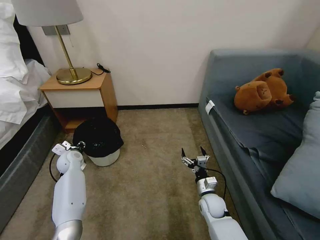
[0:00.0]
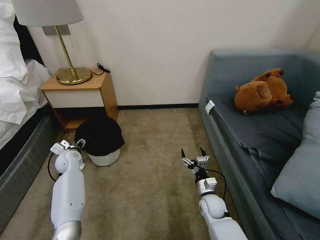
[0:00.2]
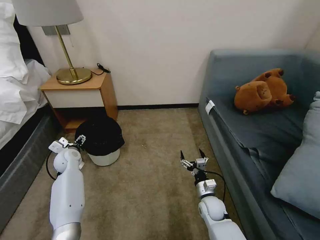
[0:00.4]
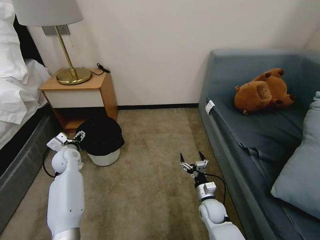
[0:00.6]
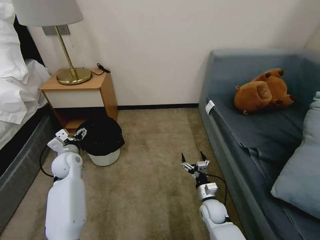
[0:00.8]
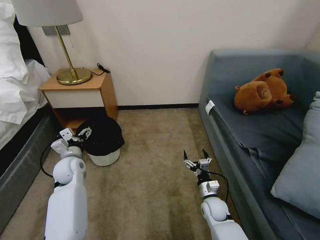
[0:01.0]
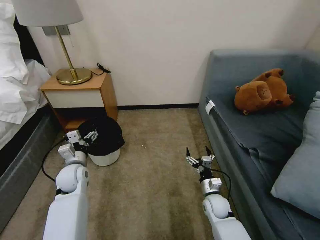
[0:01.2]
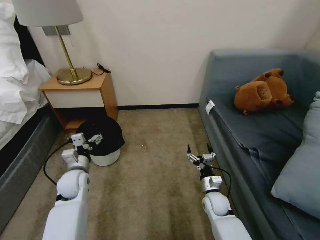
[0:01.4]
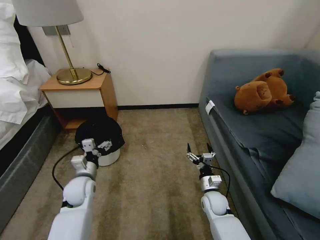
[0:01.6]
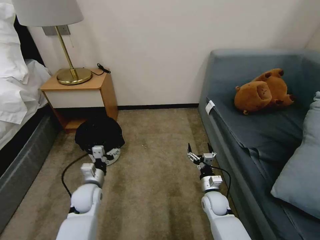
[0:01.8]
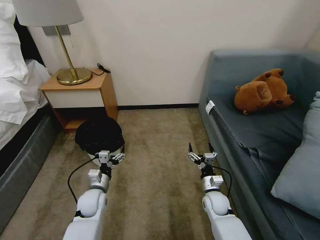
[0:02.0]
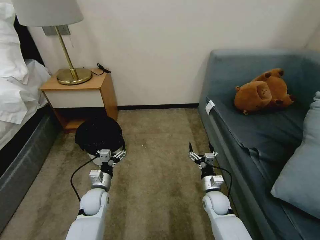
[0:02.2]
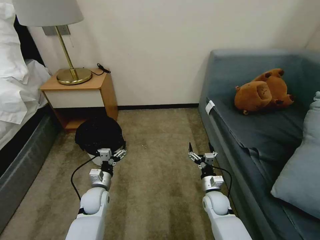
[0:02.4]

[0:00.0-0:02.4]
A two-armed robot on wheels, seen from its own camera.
Task of the whole recording: Pick up the trash bin, then pick up the garbage on the floor and place it into the trash bin.
0:00.0 to 0:01.2: The left gripper heads backward and to the right, covering some 10 cm, and opens up.
0:01.2 to 0:02.4: The left gripper goes approximately 10 cm downward and to the right.

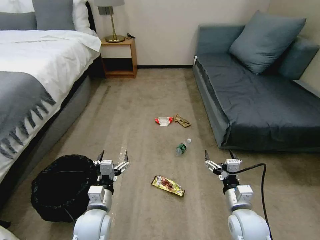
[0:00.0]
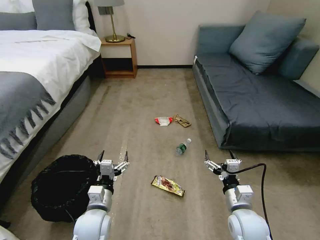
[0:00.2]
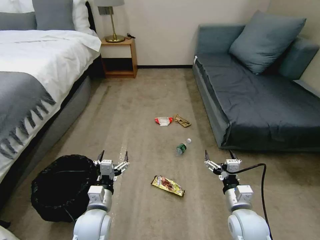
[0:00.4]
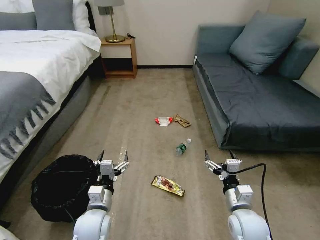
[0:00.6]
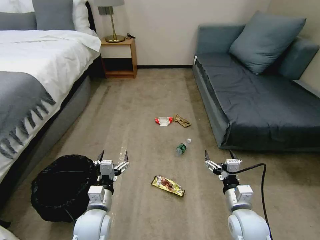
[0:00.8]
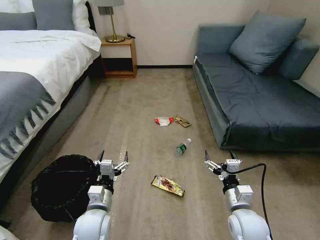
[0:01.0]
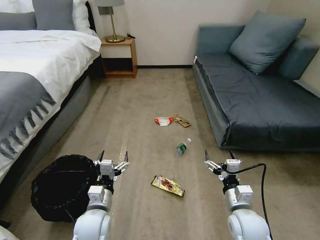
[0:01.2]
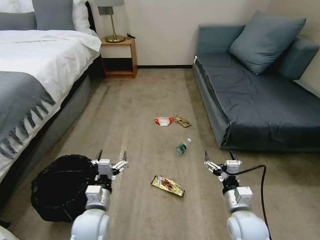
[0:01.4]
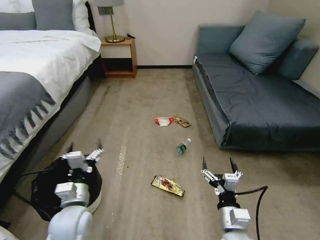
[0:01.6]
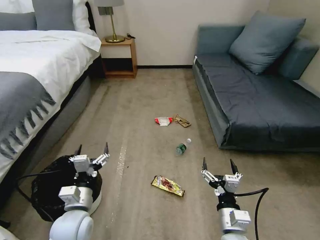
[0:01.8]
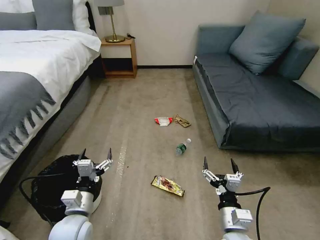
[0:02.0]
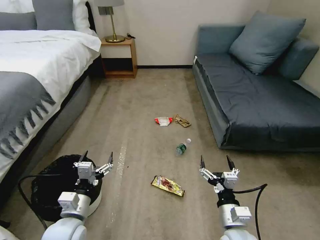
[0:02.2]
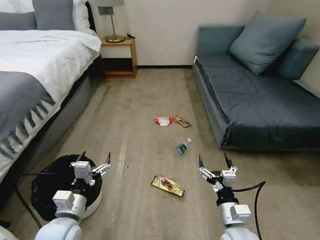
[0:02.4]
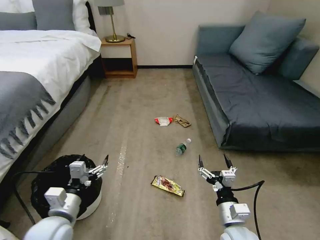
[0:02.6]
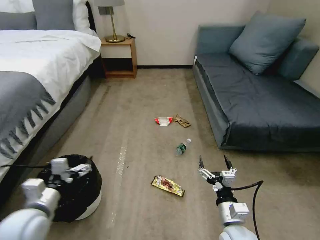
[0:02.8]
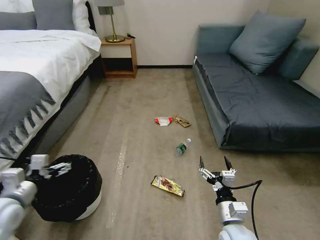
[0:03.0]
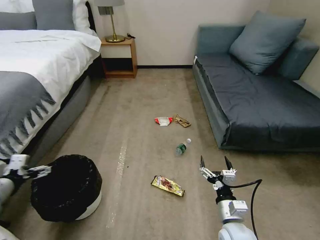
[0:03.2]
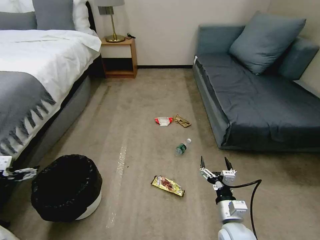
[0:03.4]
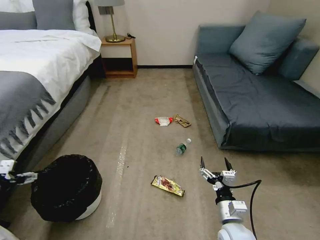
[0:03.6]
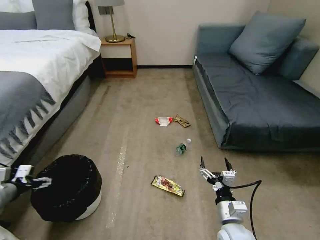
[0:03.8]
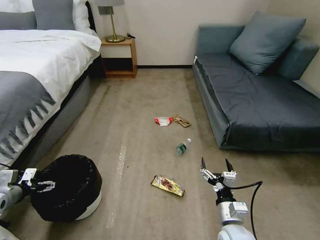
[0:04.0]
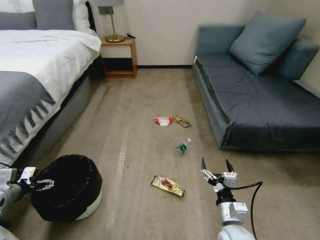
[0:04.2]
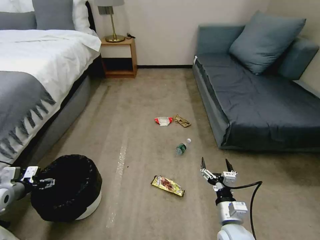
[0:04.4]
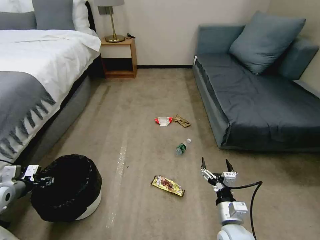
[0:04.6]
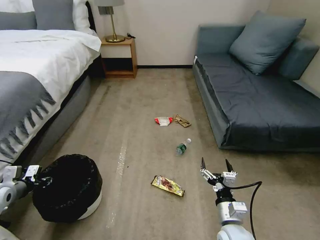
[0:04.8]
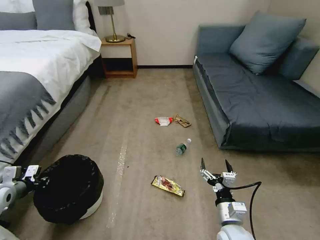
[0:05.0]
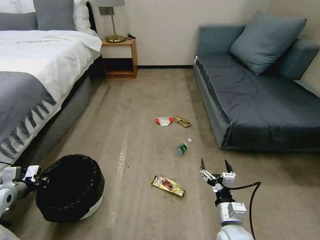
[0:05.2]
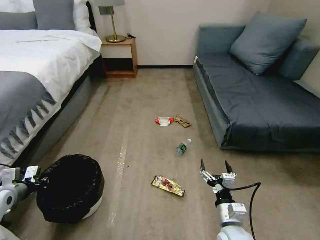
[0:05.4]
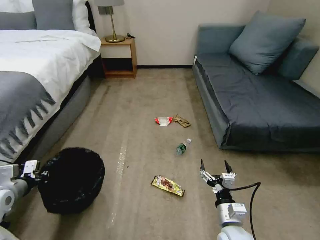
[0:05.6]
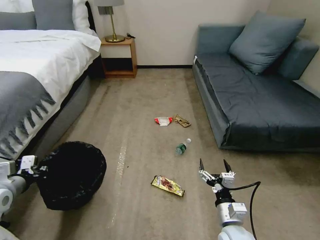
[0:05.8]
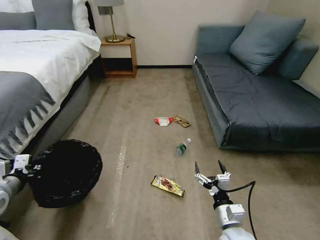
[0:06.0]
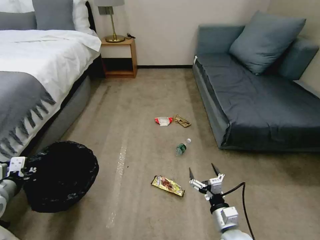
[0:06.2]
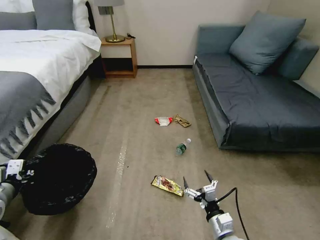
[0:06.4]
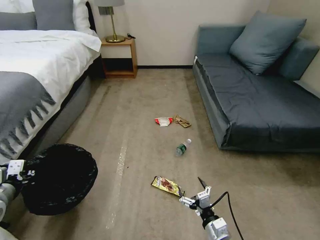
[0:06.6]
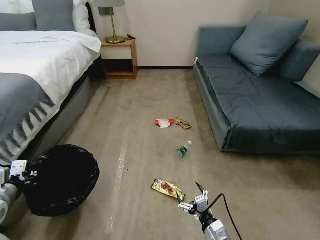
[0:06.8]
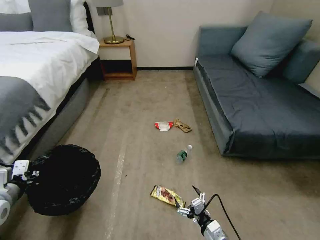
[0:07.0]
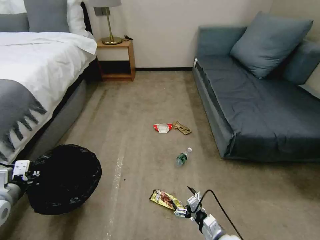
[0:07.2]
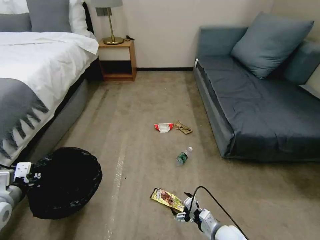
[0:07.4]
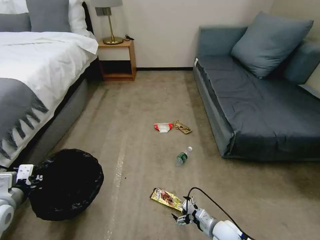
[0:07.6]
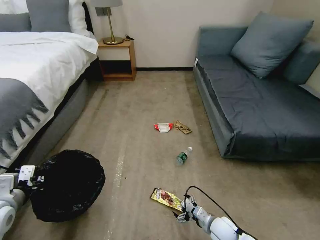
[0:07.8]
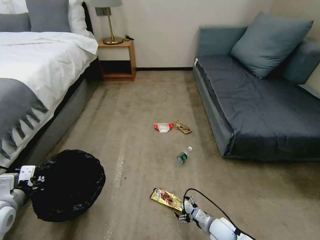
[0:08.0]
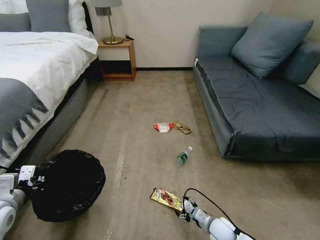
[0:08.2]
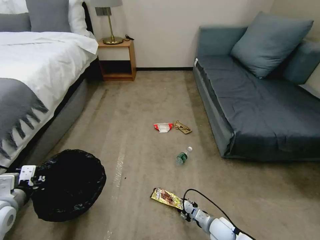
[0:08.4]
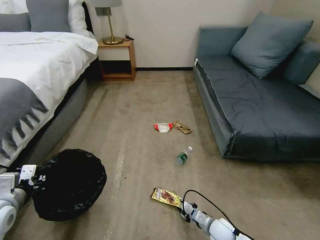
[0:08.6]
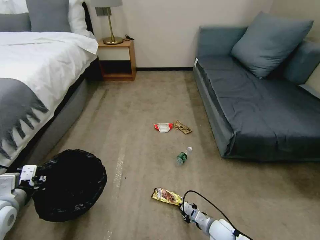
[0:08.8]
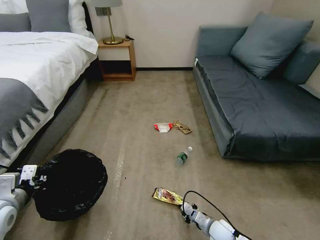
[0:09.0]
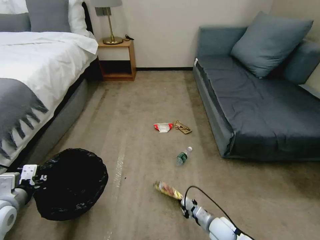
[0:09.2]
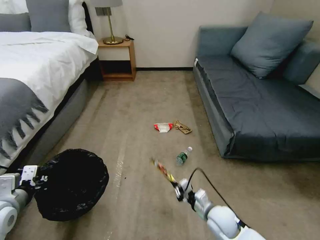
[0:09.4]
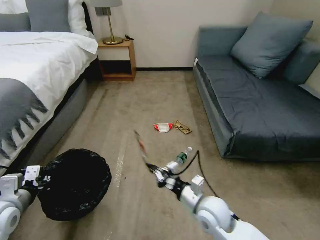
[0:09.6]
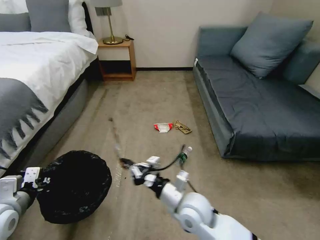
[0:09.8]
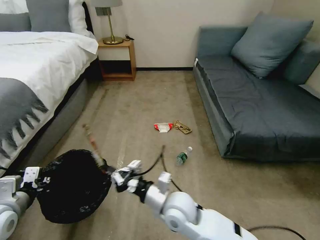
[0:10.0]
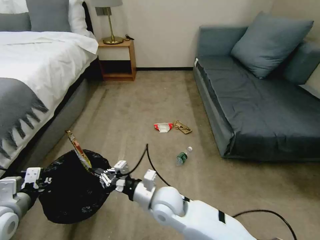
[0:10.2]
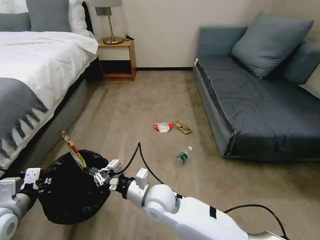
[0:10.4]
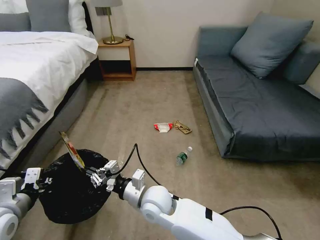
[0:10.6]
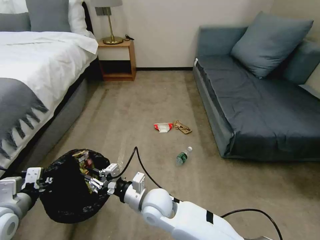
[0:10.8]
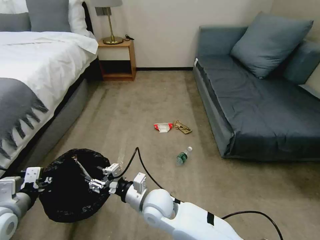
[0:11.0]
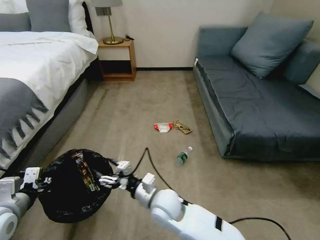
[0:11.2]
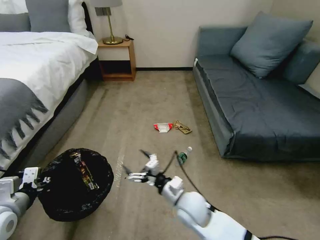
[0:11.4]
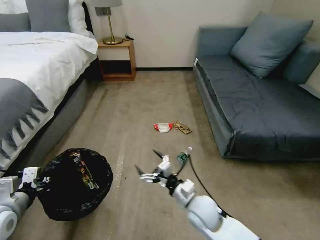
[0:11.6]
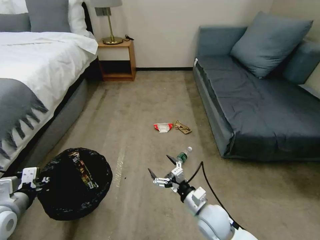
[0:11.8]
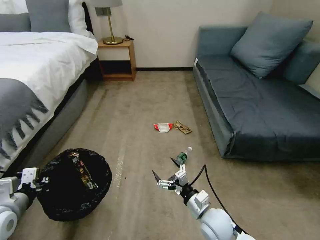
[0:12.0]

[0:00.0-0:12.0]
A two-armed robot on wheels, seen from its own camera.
Task of the whole recording: Pick up the trash bin, then pick up the garbage on the floor and place it into the trash bin.
0:01.6 to 0:03.0: The left gripper goes approximately 20 cm to the left and upward.
0:03.0 to 0:04.4: The left gripper moves to the left, downward and forward, approximately 15 cm.
0:04.4 to 0:06.0: The left gripper heads upward and to the right, covering roughly 10 cm, and closes.
0:06.0 to 0:07.6: The right gripper heads downward, covering about 10 cm.
0:07.6 to 0:09.0: The right gripper closes.
0:09.0 to 0:10.4: The right gripper heads to the left and upward, covering about 35 cm.
0:10.4 to 0:12.0: The right gripper travels to the right and downward by approximately 20 cm, and opens.

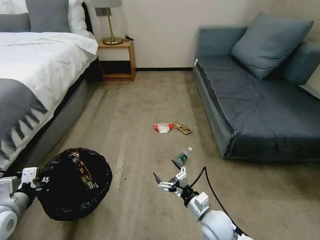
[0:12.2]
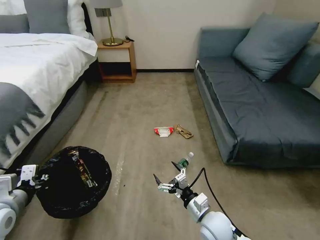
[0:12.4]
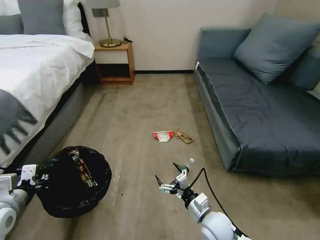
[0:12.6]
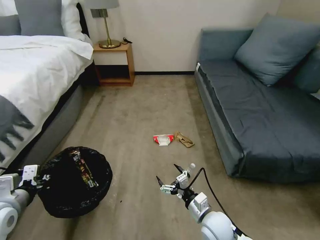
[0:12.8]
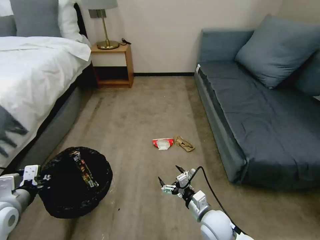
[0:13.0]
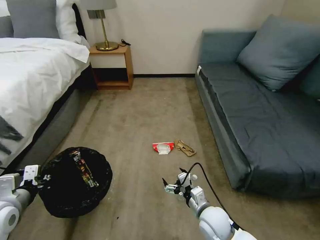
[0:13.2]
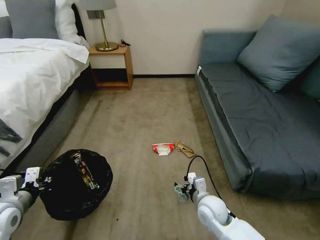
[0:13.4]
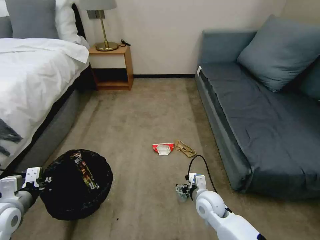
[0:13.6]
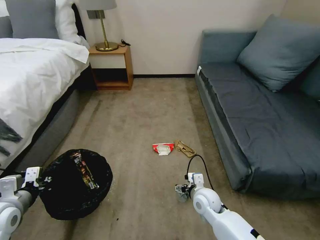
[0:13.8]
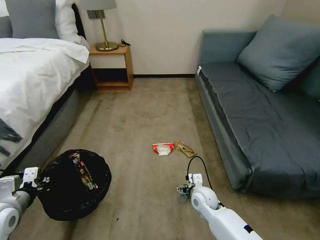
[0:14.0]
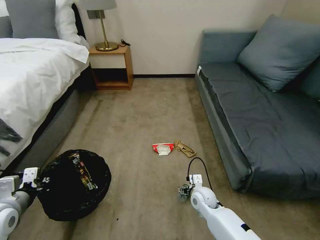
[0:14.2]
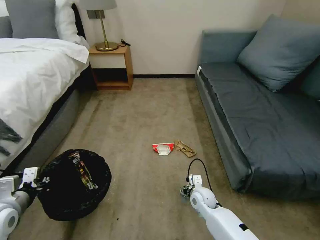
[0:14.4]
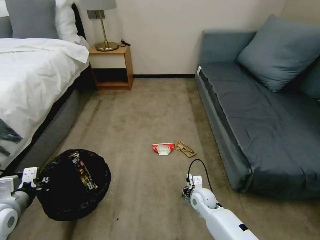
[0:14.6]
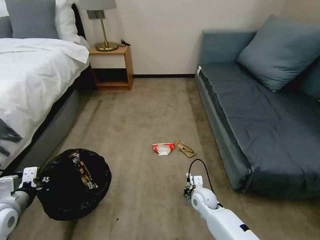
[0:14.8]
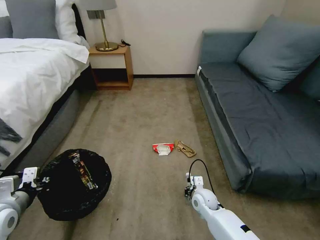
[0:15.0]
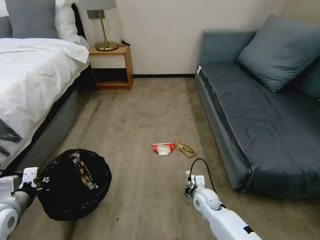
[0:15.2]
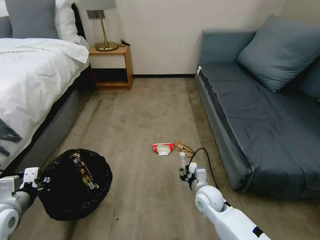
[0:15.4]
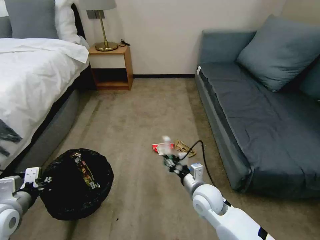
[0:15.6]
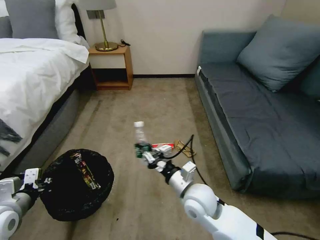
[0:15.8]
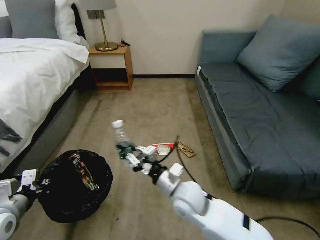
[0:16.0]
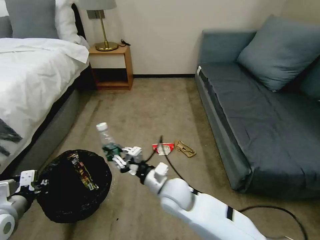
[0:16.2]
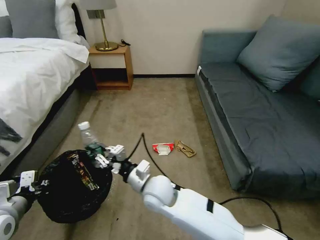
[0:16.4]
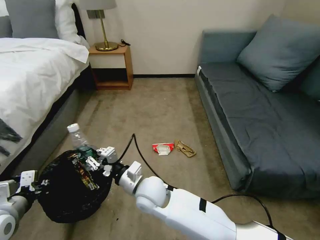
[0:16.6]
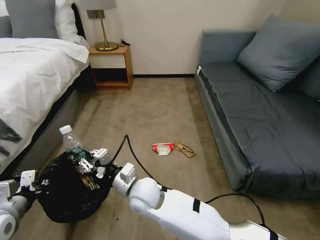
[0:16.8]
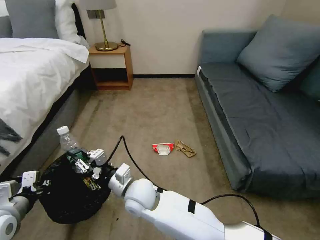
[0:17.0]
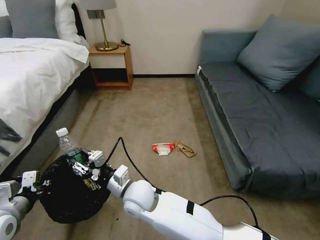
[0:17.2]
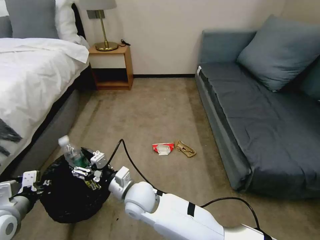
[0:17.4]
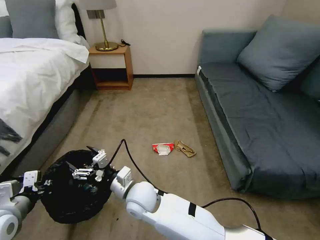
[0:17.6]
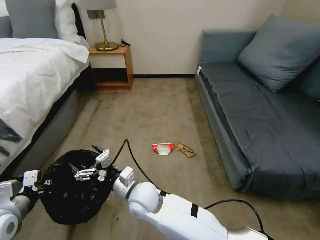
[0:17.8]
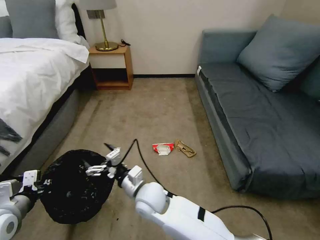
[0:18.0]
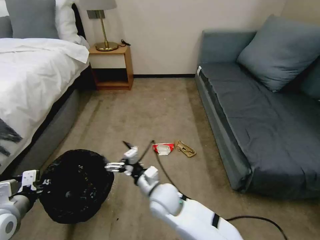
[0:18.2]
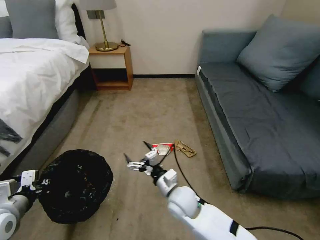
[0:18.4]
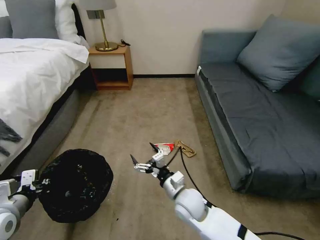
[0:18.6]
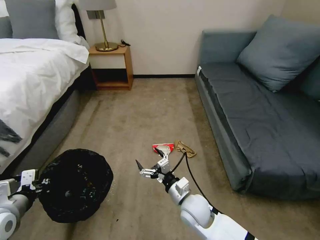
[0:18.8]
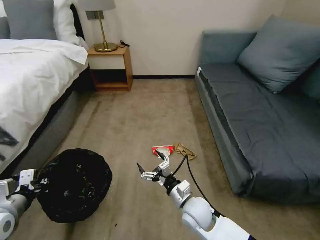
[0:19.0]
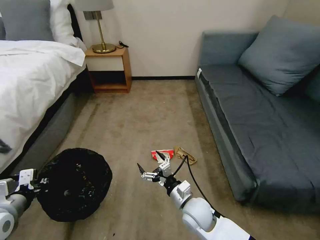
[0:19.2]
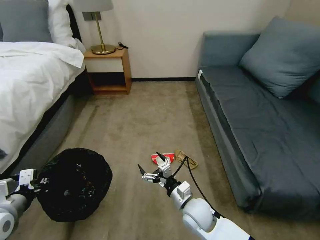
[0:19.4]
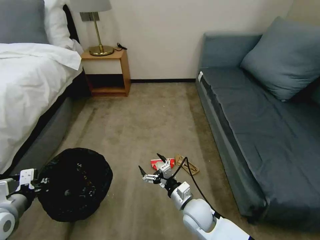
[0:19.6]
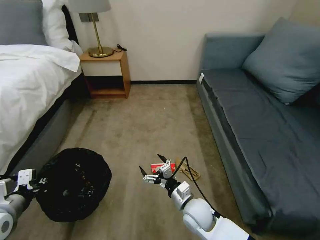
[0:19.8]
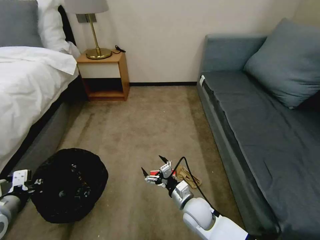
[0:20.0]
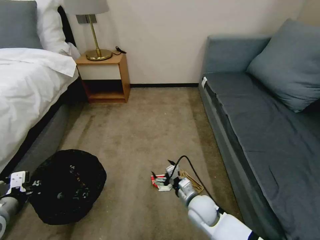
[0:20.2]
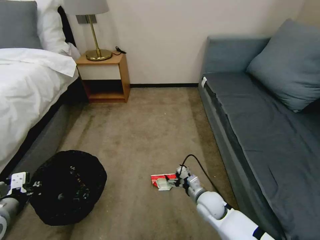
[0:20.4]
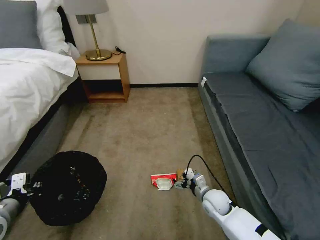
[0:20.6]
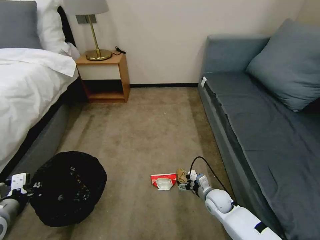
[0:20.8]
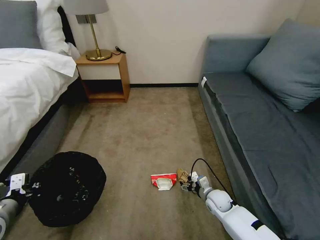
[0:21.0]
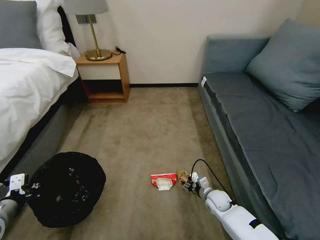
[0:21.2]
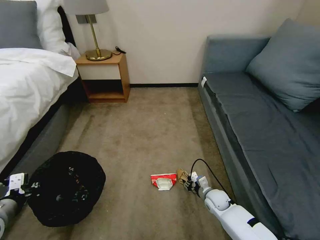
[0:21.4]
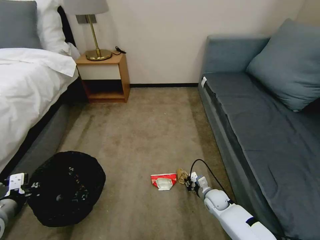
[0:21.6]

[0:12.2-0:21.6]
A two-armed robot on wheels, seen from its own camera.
Task of the whole recording: Pick up the trash bin, then pick up the garbage on the floor and place it into the trash bin.
0:12.2 to 0:13.8: The right gripper goes roughly 10 cm forward.
0:13.8 to 0:15.4: The right gripper closes up.
0:15.4 to 0:17.0: The right gripper goes roughly 25 cm to the left and upward.
0:17.0 to 0:18.4: The right gripper shifts some 15 cm to the right and downward, and opens up.
0:18.4 to 0:20.0: The right gripper heads to the right and downward, covering some 10 cm.
0:20.0 to 0:21.6: The right gripper goes about 20 cm to the right, downward and forward, and closes its fingers.
